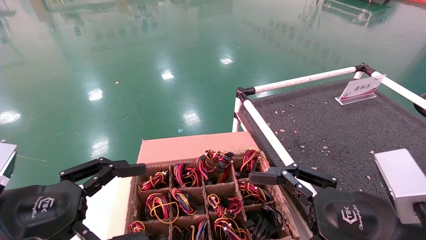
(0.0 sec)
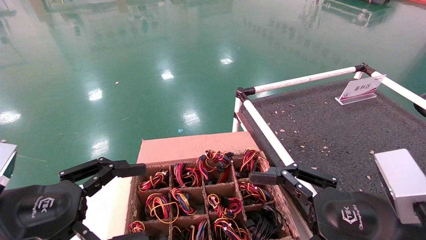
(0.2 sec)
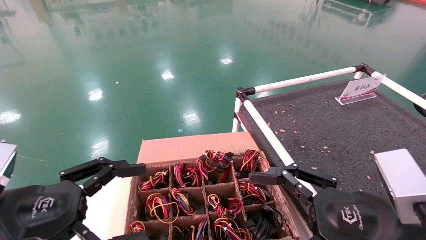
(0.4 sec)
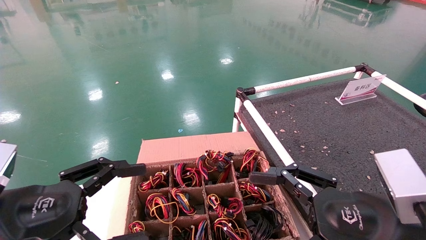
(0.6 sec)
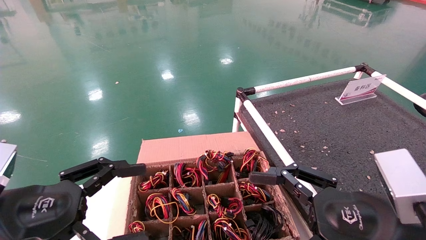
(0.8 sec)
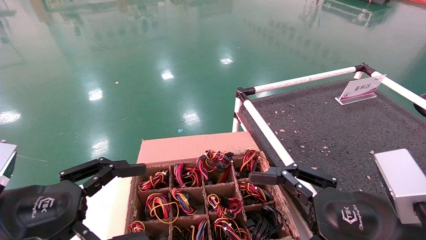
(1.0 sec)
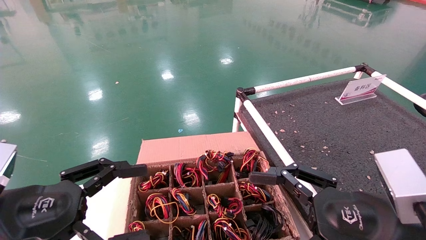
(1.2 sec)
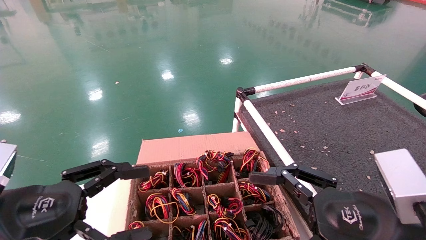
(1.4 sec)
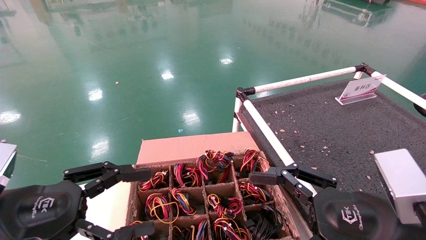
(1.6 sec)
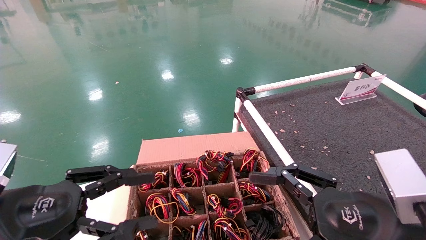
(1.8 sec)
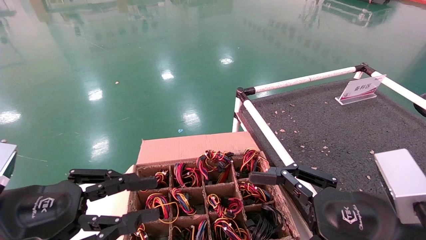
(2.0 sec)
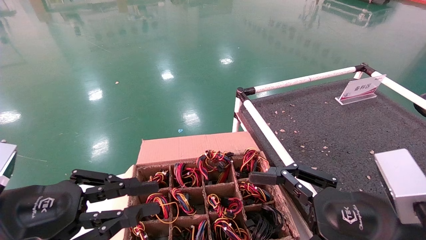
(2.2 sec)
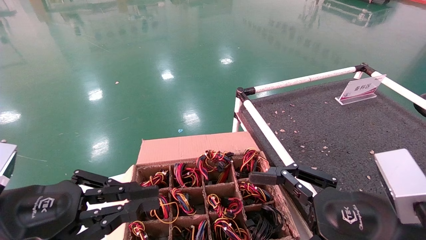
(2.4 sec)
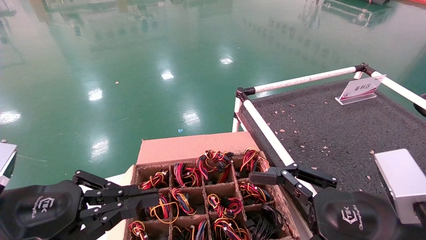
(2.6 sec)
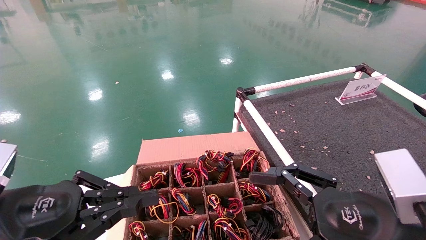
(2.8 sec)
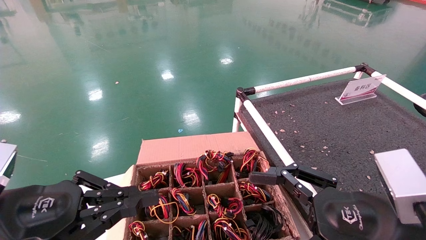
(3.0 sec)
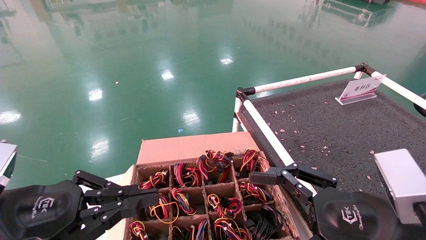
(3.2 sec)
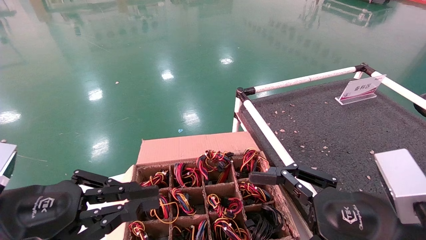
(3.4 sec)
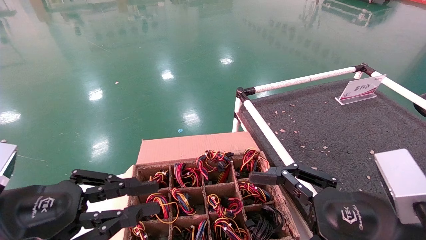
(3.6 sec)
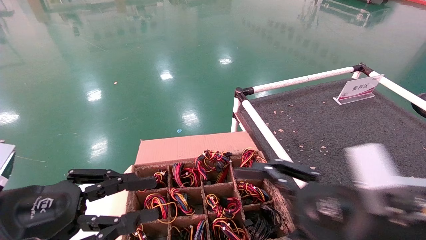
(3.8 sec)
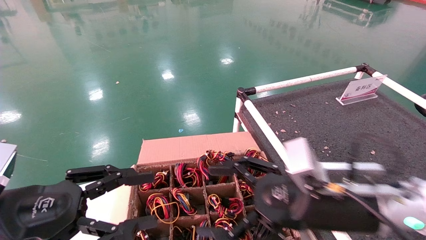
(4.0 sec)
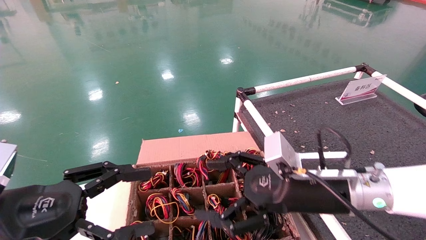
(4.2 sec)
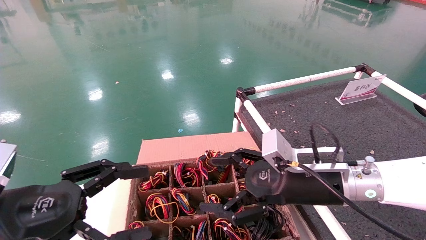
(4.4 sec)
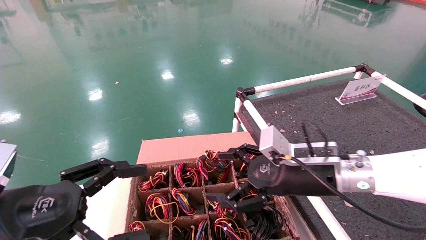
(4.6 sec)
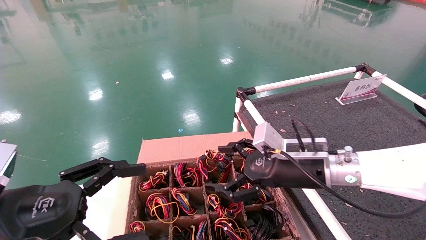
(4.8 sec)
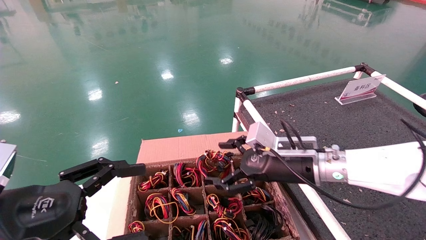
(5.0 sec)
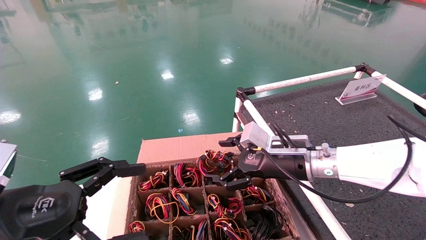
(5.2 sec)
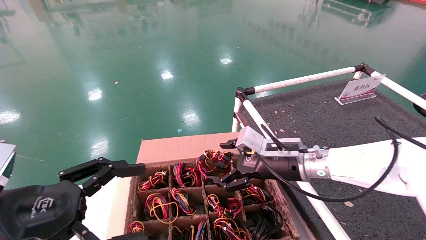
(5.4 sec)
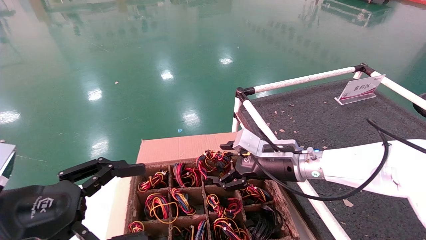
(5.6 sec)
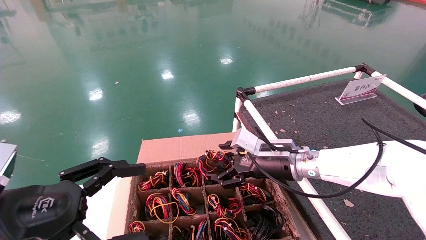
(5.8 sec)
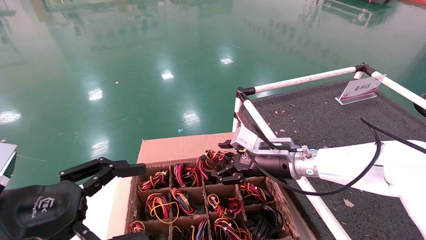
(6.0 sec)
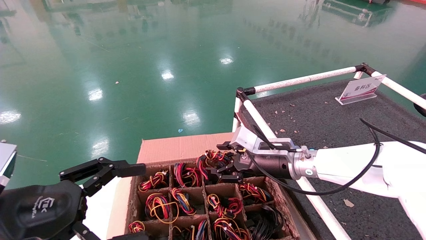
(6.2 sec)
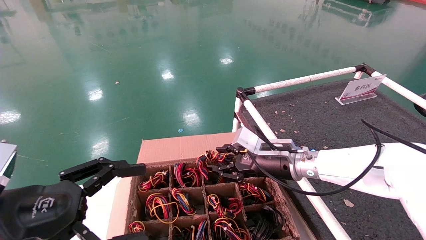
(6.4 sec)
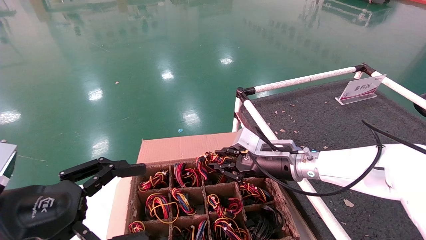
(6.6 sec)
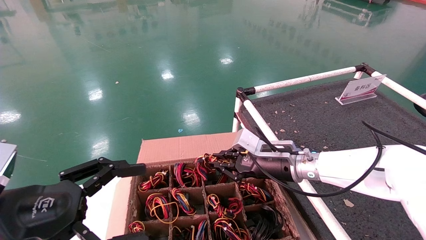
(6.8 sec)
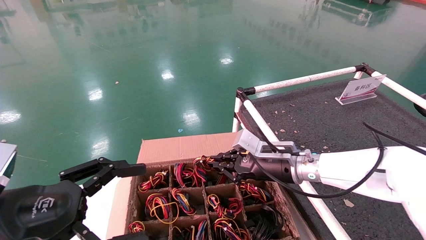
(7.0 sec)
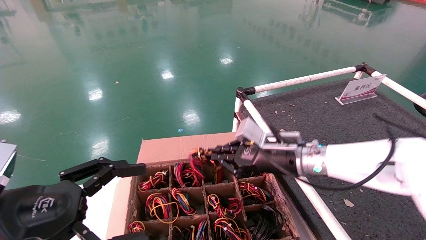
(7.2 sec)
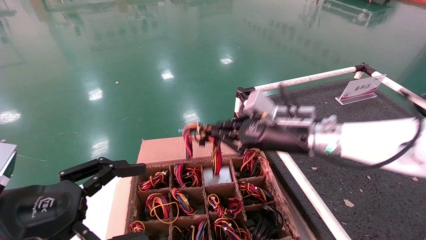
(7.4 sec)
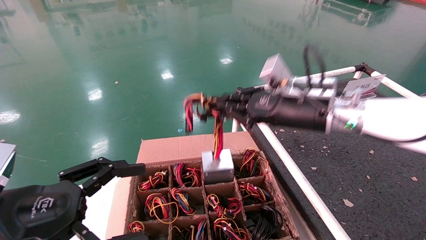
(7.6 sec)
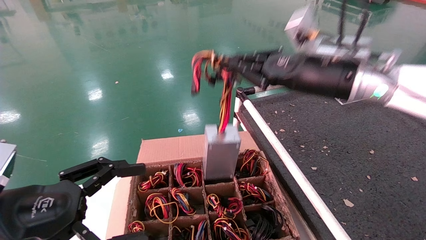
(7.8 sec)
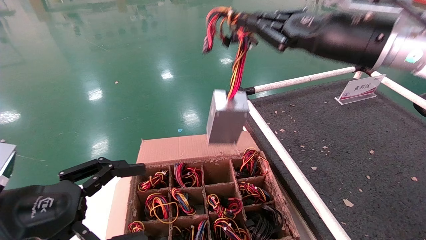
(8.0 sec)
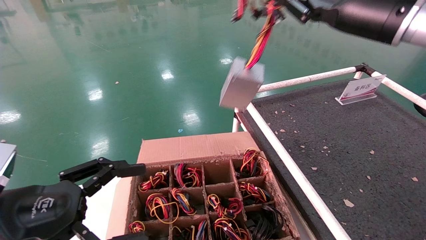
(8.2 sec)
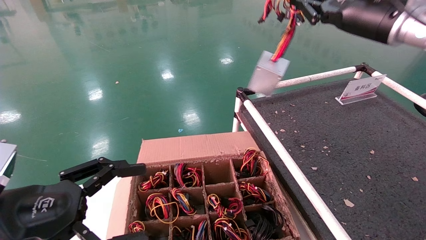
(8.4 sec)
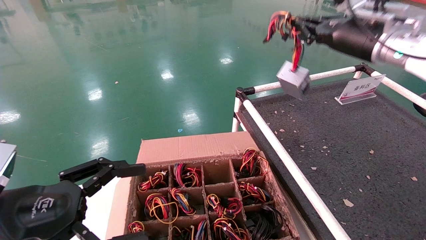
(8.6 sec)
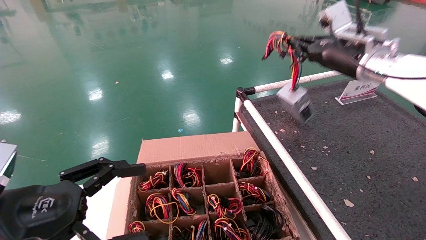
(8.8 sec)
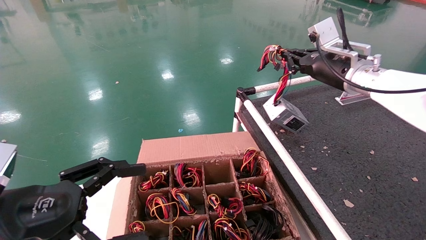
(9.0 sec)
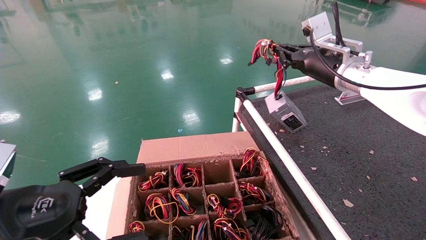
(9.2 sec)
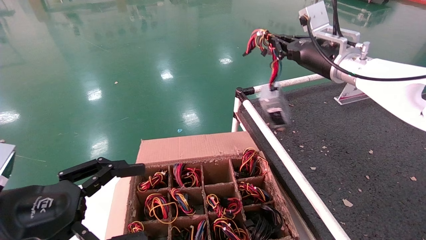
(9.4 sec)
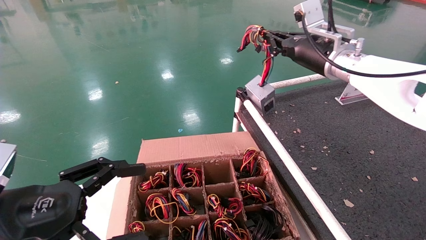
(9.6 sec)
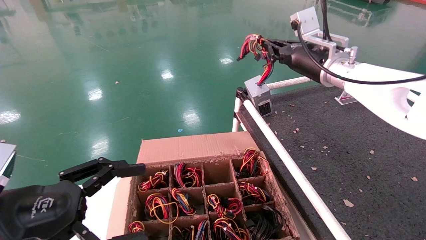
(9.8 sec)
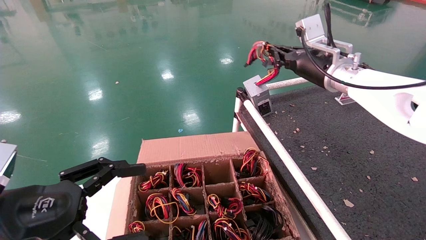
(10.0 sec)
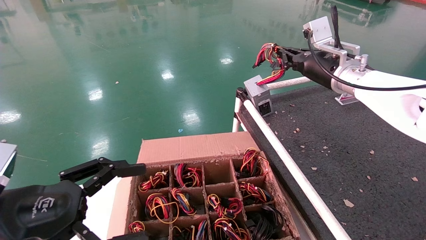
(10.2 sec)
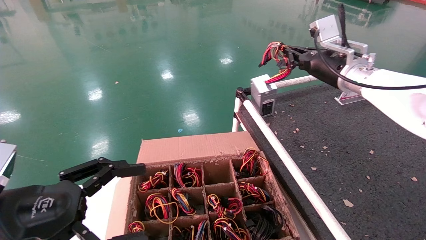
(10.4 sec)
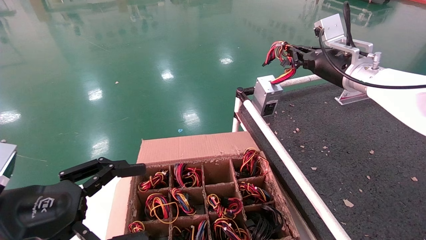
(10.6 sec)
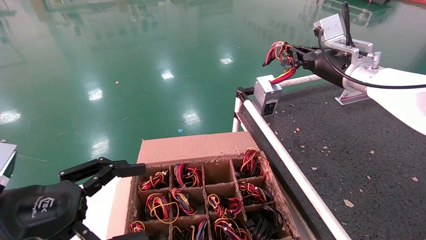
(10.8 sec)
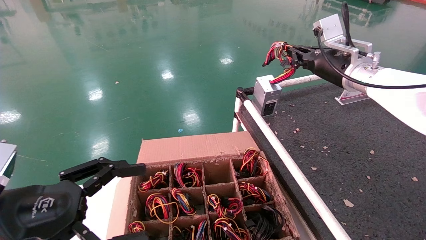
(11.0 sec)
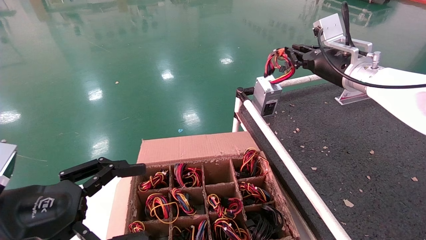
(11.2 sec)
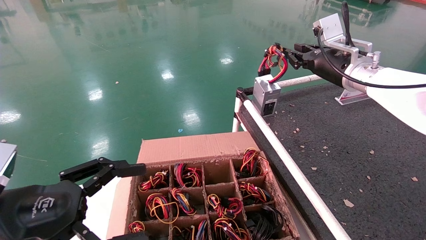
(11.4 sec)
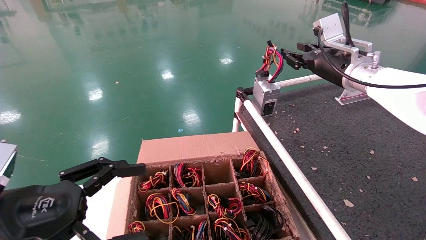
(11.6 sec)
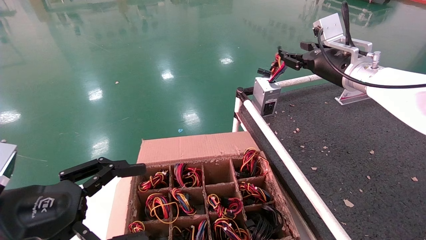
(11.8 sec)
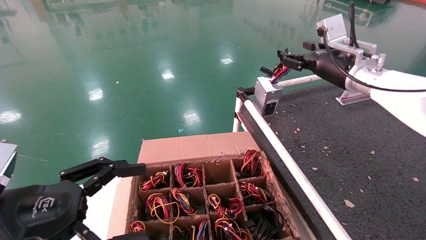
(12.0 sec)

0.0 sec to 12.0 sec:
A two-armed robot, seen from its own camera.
Step, 4.2 sec to 6.8 sec: Grab and lift the power supply from the large box.
Step, 7.0 sec to 11.6 sec: Place the power supply on the operating table.
0.0 sec to 1.6 sec: Both grippers stay put.
1.6 sec to 3.0 sec: The left gripper closes.
3.0 sec to 4.4 sec: The right gripper goes about 15 cm forward and to the left. The left gripper opens.
4.4 sec to 6.0 sec: The right gripper travels forward by approximately 10 cm.
6.0 sec to 7.6 sec: The right gripper is displaced upward and backward by approximately 15 cm, and closes.
7.6 sec to 9.0 sec: The right gripper heads to the right, upward and forward, covering approximately 10 cm.
9.0 sec to 10.4 sec: The grippers make only small movements.
10.4 sec to 12.0 sec: The right gripper opens its fingers.

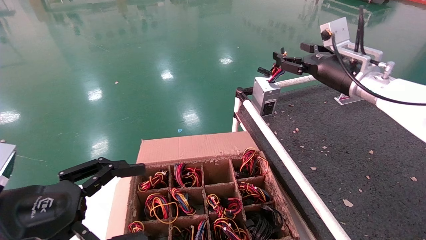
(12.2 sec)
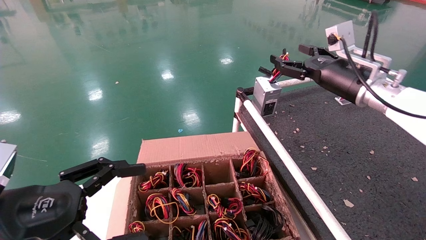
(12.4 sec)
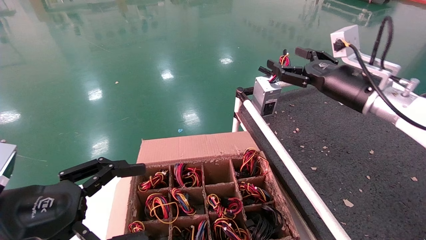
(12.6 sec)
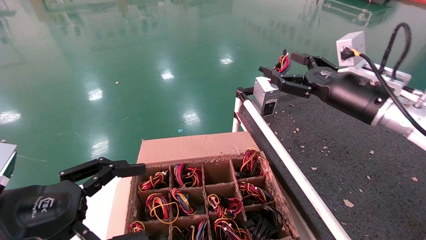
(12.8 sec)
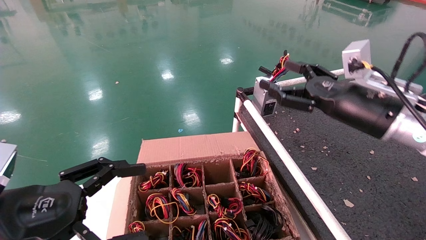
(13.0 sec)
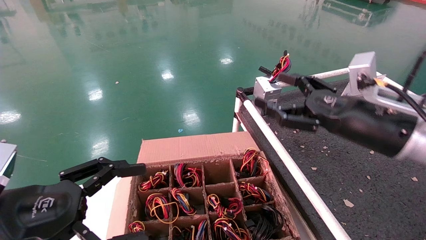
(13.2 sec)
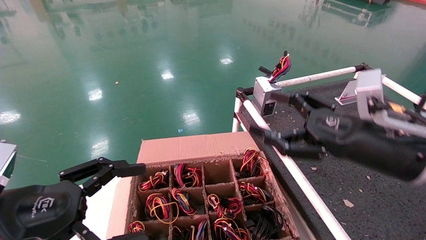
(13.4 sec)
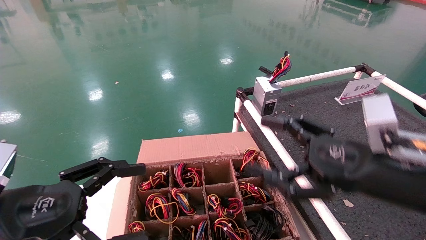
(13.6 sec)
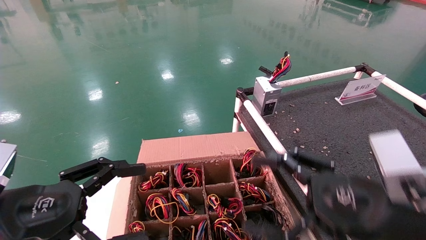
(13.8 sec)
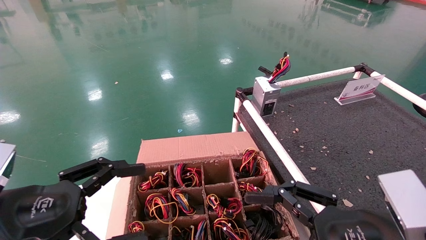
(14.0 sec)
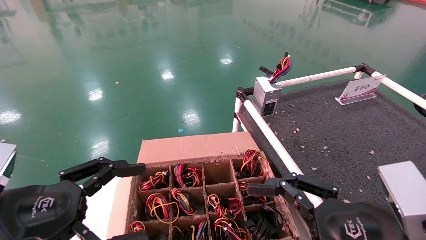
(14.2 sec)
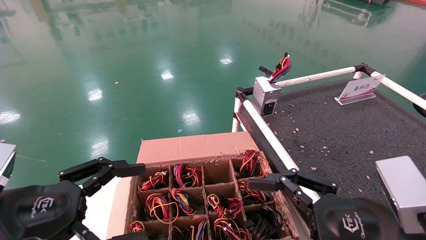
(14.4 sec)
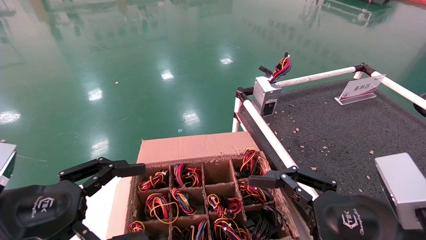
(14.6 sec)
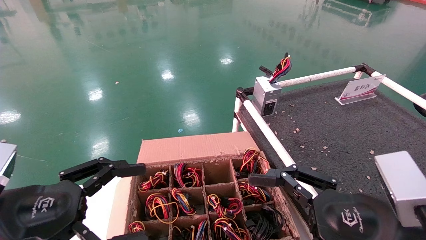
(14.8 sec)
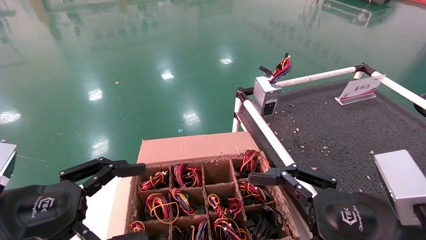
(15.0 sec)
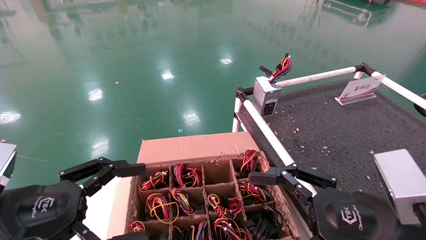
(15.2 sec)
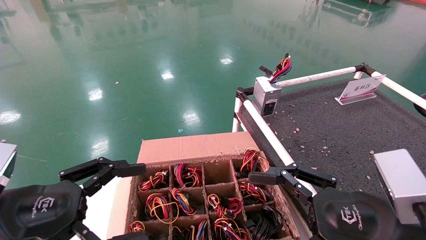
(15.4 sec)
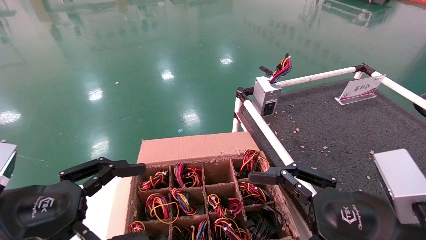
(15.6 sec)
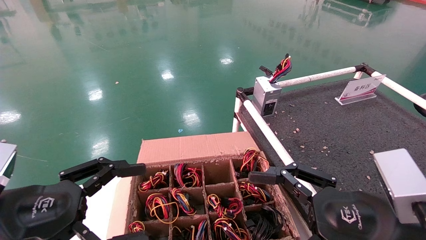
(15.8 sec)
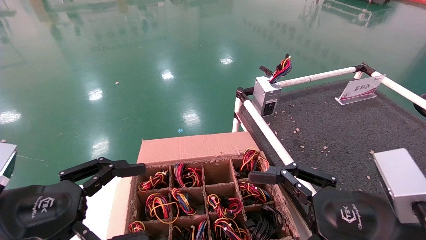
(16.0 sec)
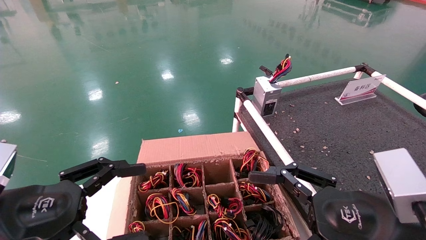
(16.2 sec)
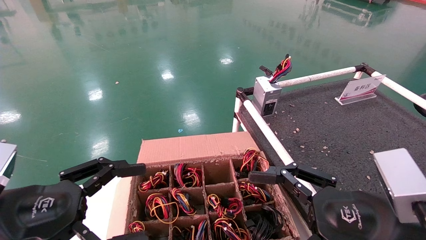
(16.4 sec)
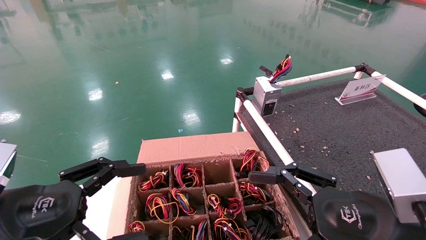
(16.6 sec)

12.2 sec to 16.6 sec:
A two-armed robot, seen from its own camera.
12.2 sec to 13.6 sec: The right gripper moves backward and downward, about 25 cm.
13.6 sec to 15.2 sec: The right gripper ends up approximately 5 cm from where it was.
15.2 sec to 16.6 sec: Both grippers stay put.
